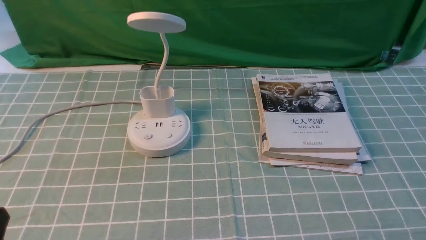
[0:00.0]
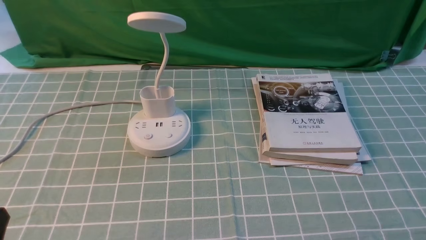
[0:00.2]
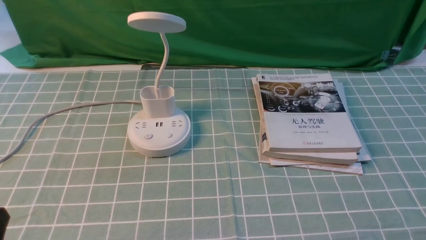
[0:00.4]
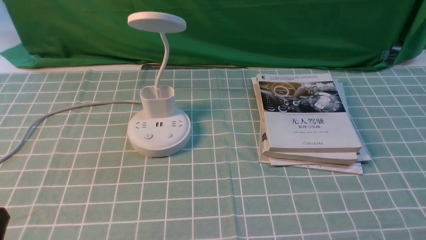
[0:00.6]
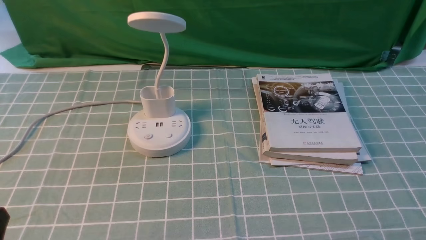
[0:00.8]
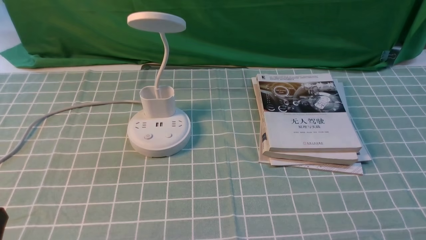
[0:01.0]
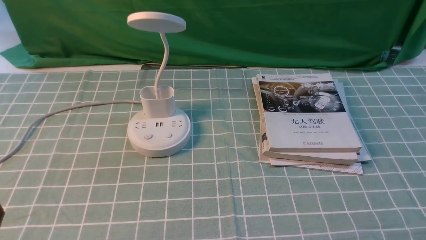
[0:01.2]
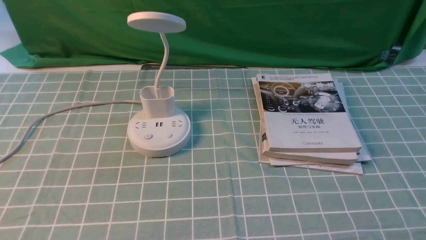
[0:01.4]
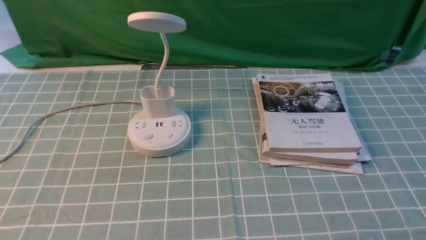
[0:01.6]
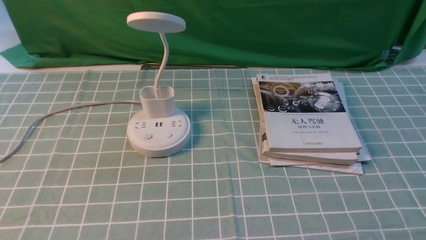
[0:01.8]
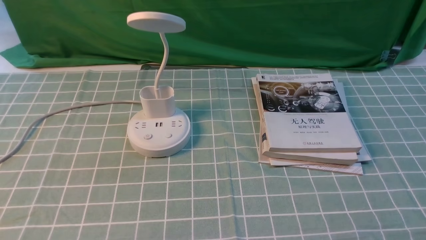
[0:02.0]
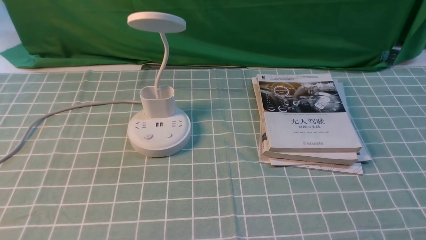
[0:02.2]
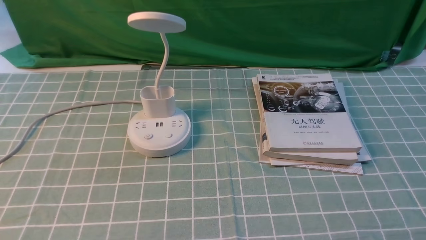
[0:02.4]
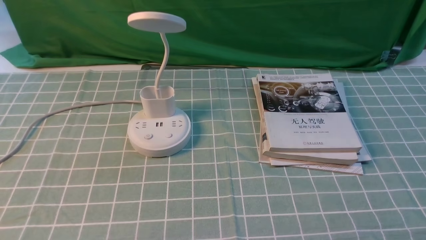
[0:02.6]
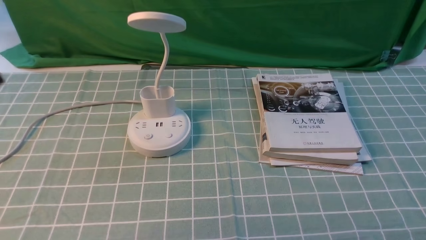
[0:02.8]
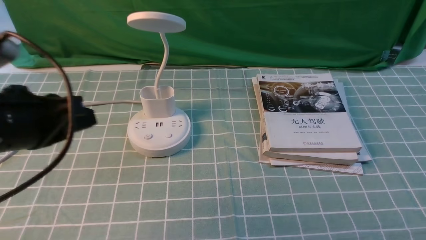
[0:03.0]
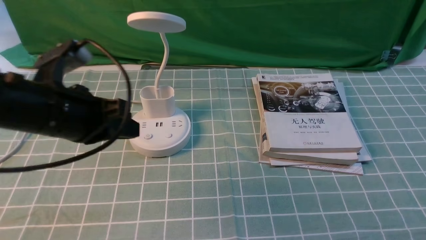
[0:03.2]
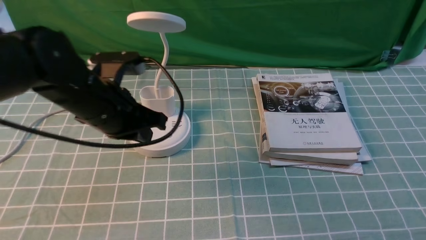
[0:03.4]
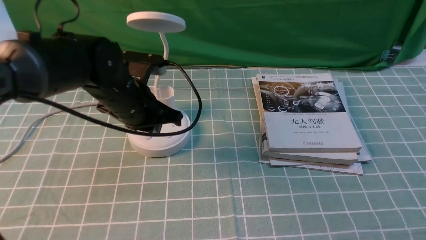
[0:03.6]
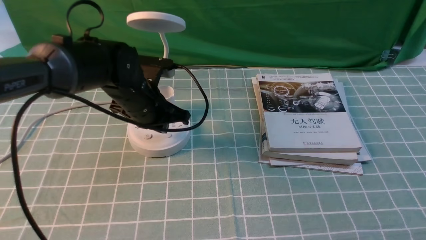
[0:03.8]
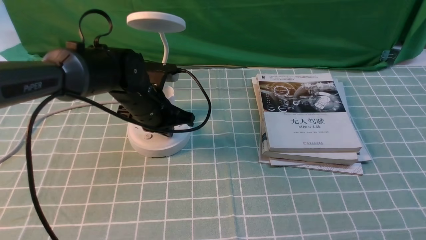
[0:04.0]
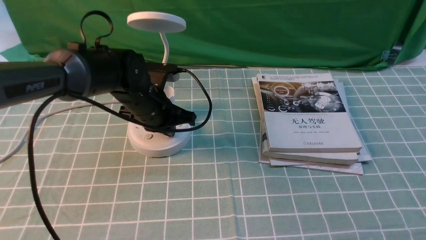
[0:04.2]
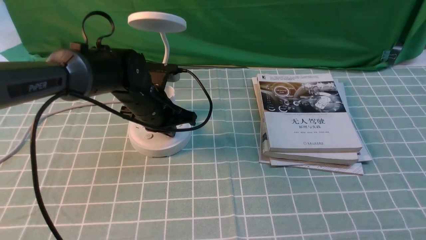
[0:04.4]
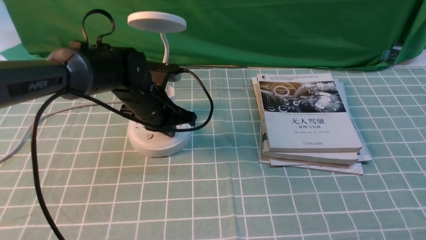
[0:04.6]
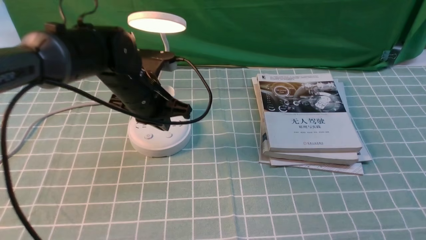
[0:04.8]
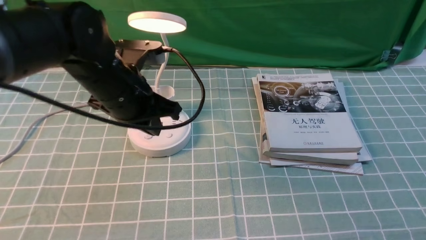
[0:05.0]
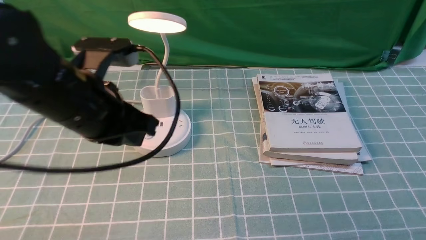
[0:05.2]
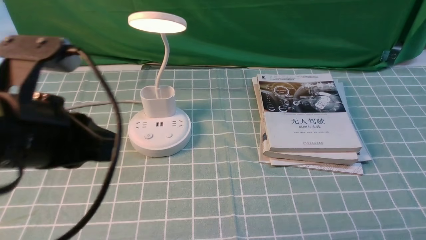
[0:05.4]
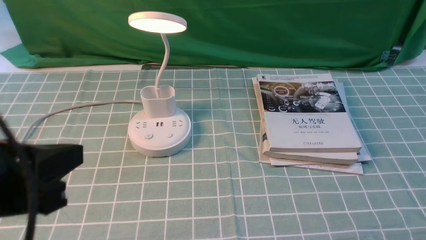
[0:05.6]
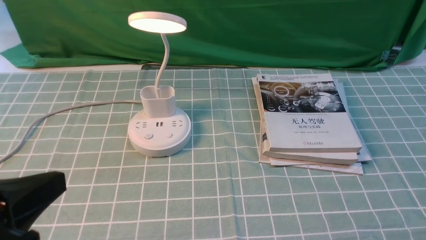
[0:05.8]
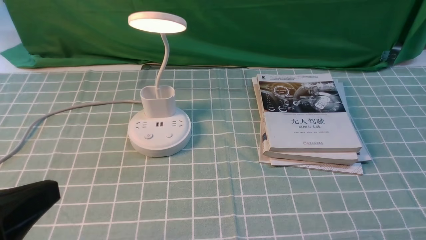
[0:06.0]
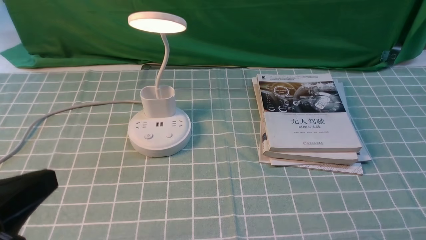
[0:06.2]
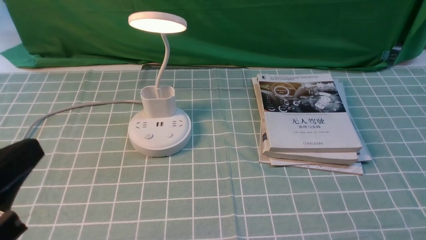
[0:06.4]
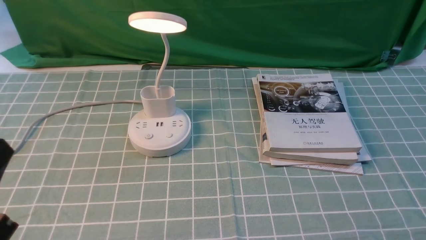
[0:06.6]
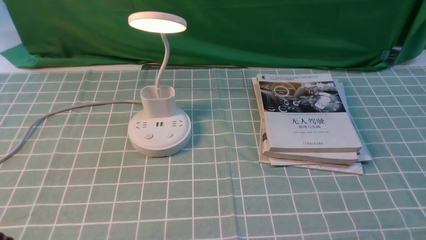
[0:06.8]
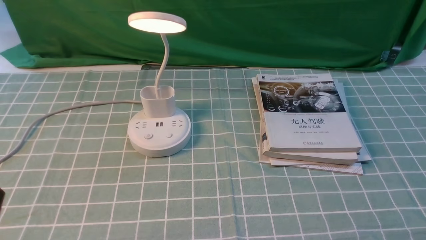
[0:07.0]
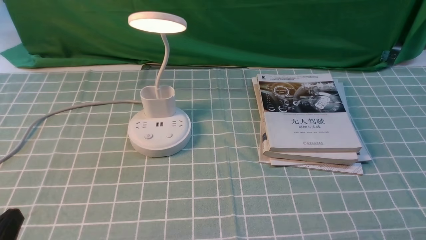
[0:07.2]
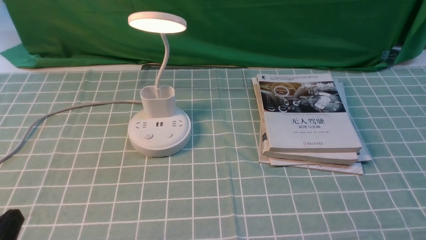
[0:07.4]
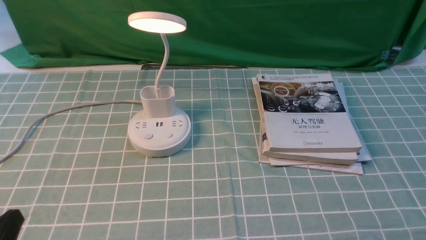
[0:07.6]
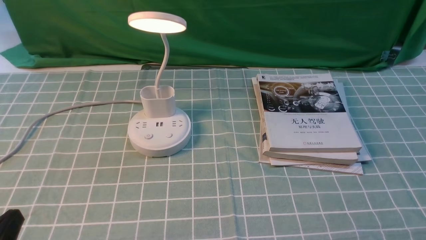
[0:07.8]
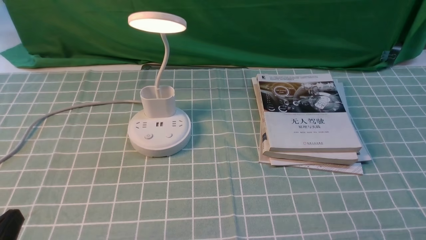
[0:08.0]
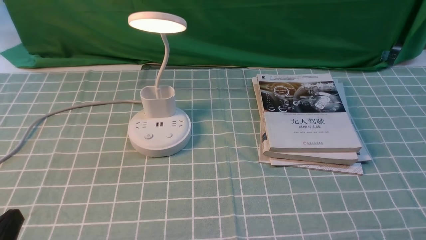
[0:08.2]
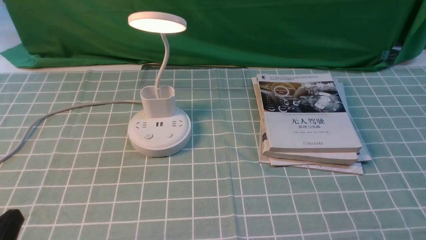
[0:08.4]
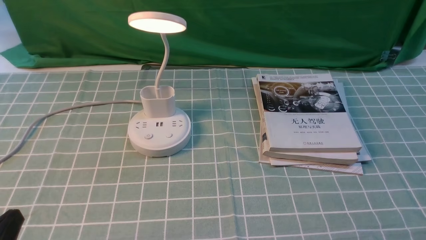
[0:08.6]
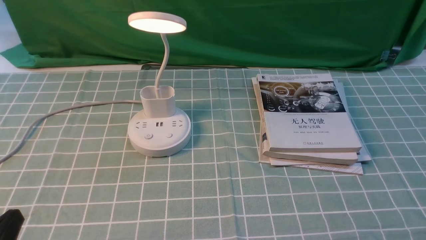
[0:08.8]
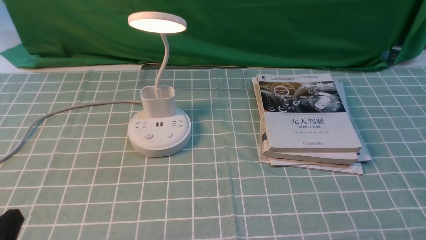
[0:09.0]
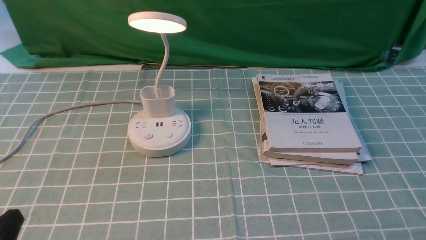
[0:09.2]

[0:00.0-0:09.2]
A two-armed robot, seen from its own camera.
Step, 0:00.0 to 0:04.8: use the left arm to press the button switch on the lamp holder.
0:01.6 to 0:03.0: The left gripper heads forward, covering approximately 20 cm.
0:03.0 to 0:04.6: The left gripper moves forward, to the right and downward, some 25 cm.
0:04.6 to 0:06.2: The left gripper goes about 30 cm backward.
0:06.2 to 0:07.6: The left gripper moves downward, some 10 cm.
0:07.6 to 0:09.2: The two grippers keep their place.

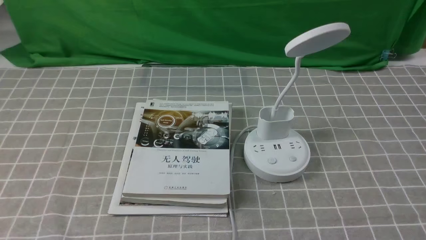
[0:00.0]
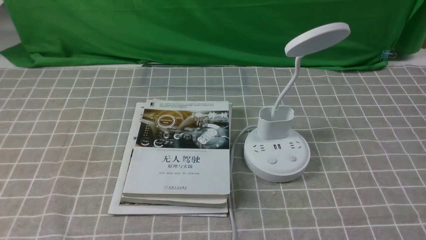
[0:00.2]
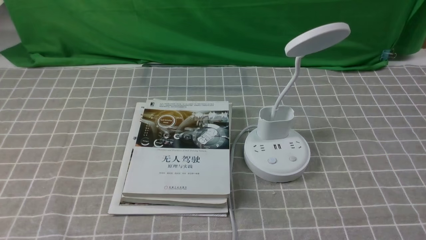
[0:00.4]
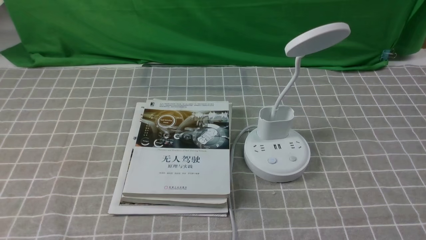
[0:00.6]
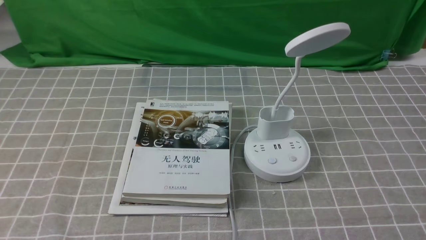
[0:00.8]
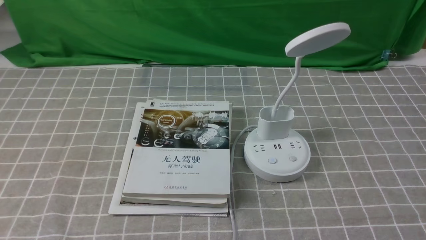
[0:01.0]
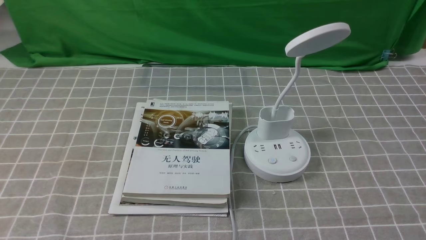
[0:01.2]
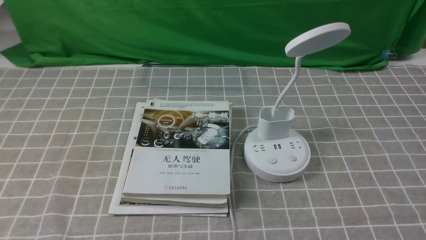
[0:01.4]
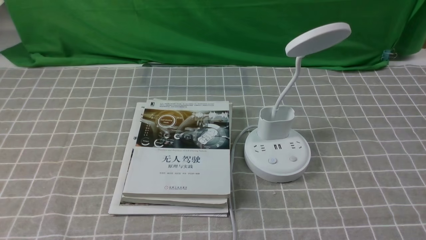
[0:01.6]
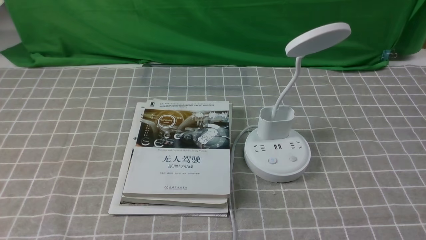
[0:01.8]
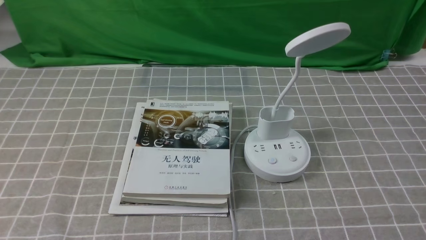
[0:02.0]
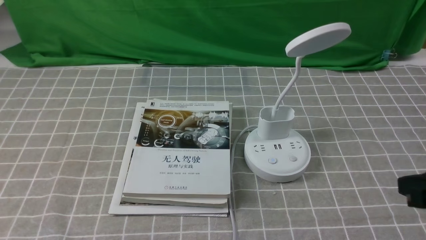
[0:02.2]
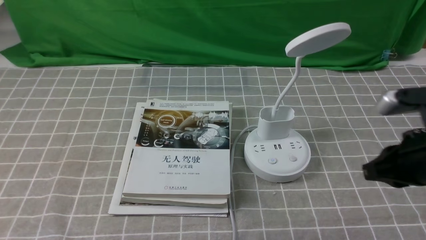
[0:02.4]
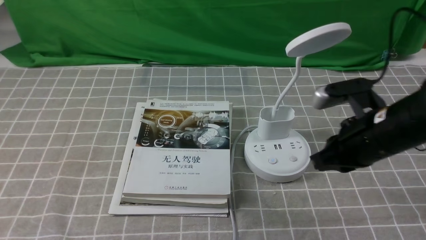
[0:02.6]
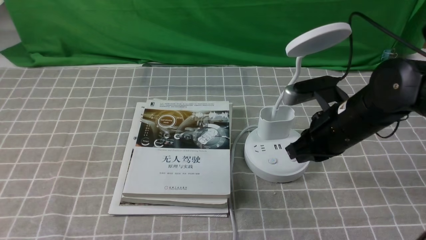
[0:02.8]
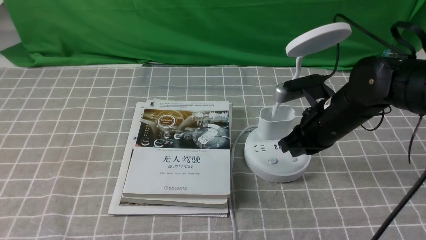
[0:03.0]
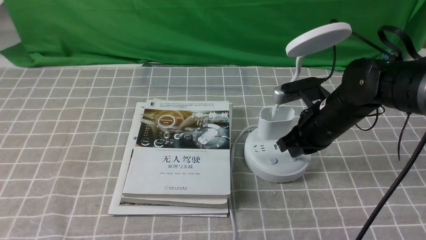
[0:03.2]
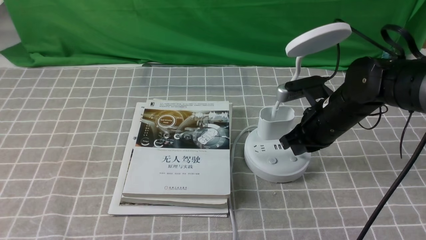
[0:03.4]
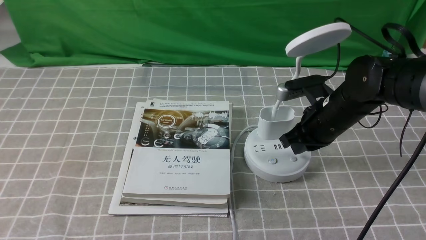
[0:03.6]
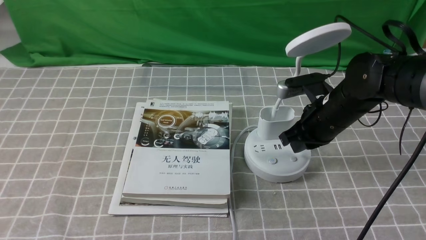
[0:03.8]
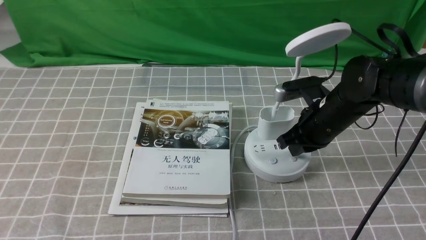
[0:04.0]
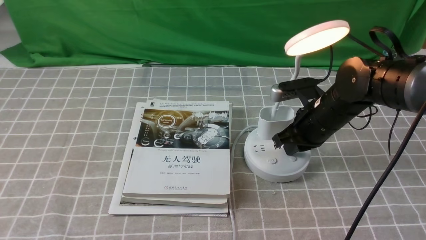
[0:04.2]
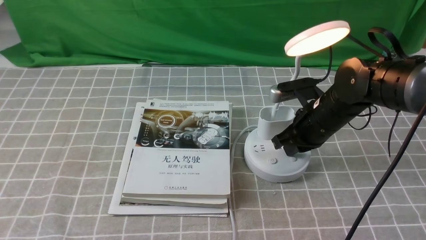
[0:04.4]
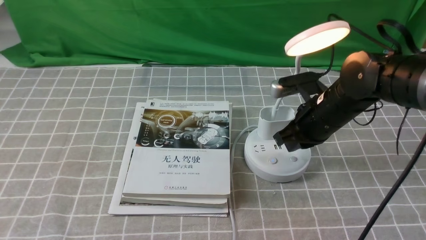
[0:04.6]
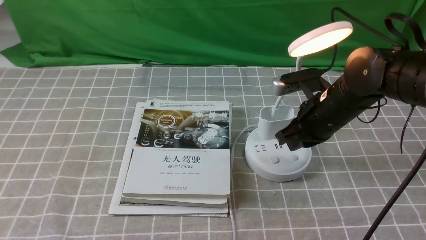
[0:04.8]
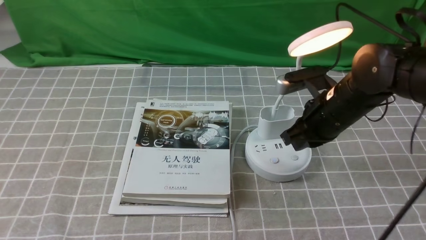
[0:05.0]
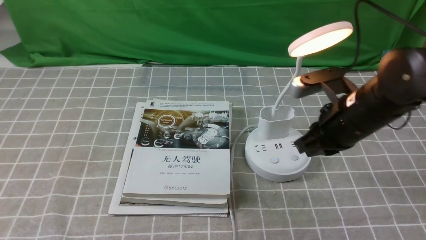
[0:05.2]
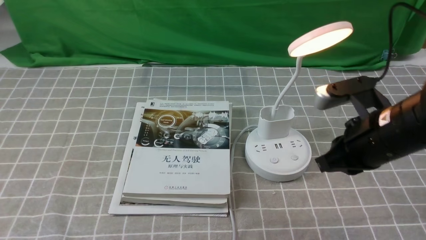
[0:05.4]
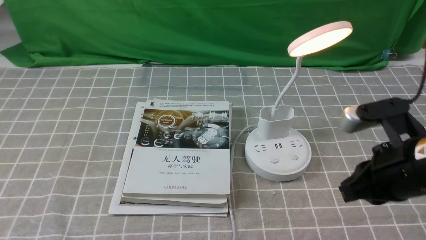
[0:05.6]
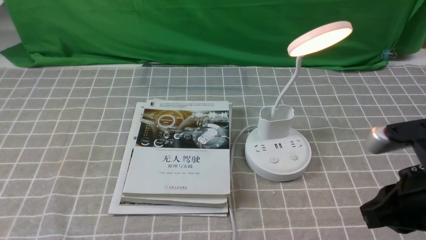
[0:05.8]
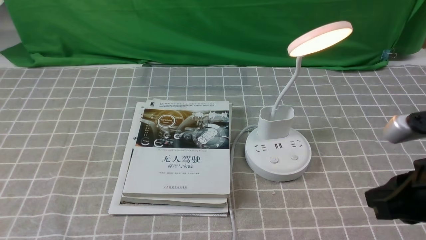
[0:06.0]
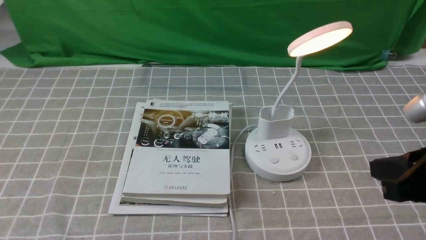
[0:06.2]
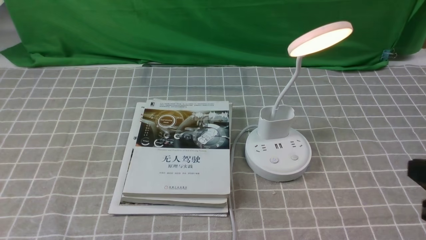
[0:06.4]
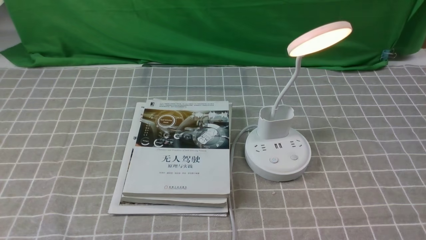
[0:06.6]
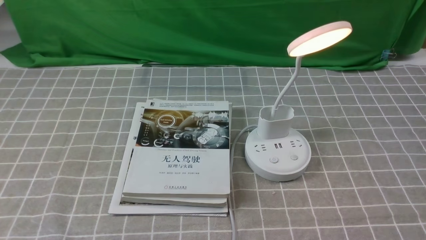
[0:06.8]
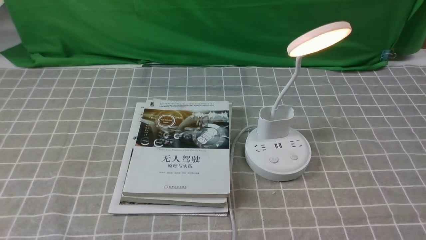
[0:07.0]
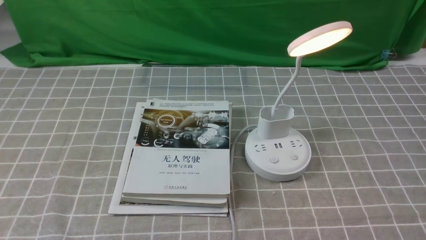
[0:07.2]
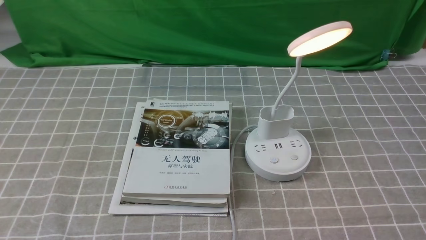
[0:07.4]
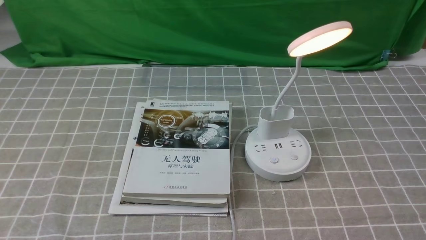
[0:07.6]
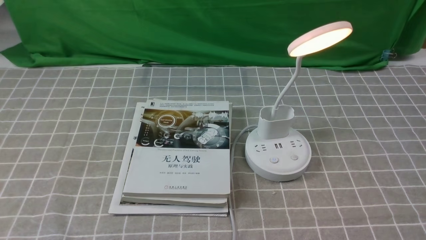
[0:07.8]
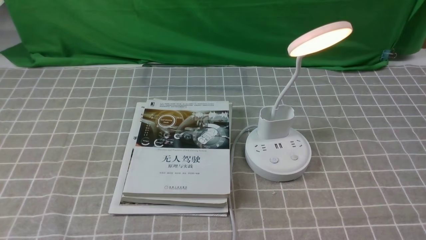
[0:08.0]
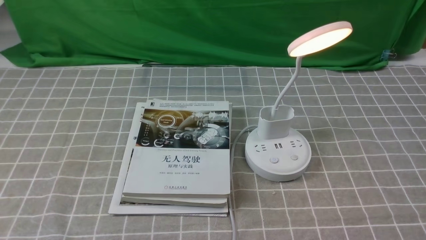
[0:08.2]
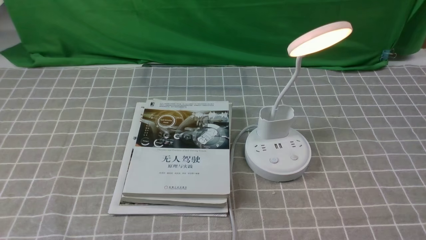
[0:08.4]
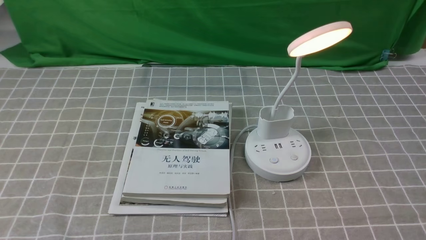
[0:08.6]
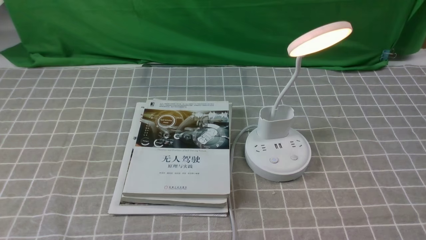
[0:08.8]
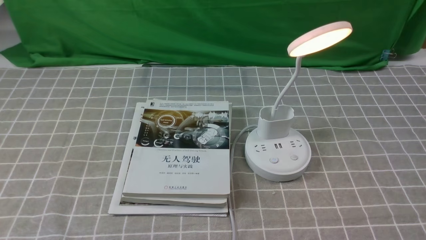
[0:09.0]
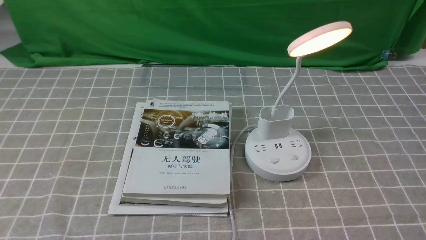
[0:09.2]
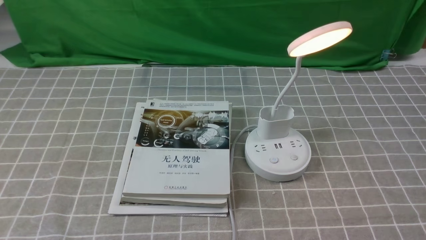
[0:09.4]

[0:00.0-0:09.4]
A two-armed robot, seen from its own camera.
Step, 0:00.0 to 0:04.6: use the right arm to press the button switch on the lamp holder.
0:01.6 to 0:03.2: The right gripper travels forward and to the left by approximately 35 cm, and closes its fingers.
0:03.2 to 0:04.8: The grippers stay close to where they were, moving slightly.
0:04.8 to 0:06.2: The right gripper is displaced backward, to the right and upward by approximately 25 cm.
0:06.2 to 0:07.8: The right gripper is displaced downward, backward and to the right by roughly 15 cm.
